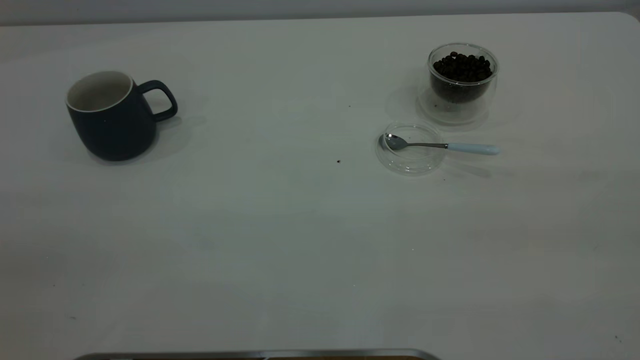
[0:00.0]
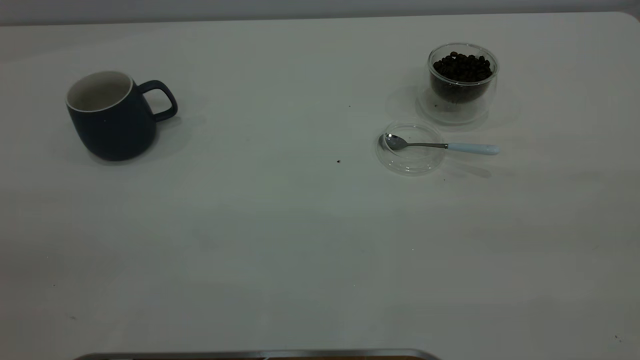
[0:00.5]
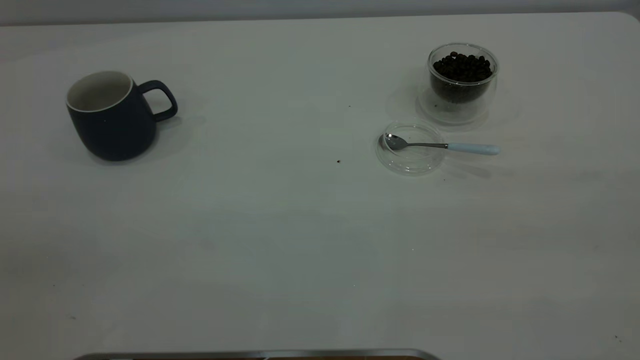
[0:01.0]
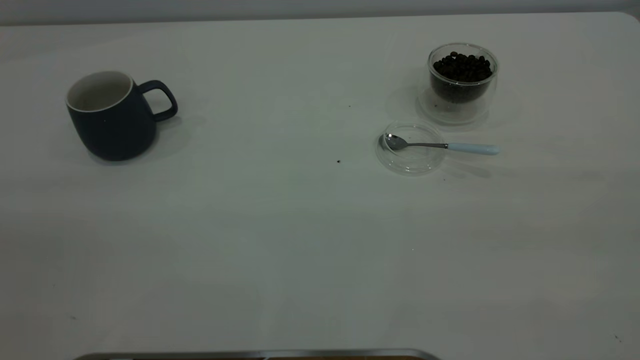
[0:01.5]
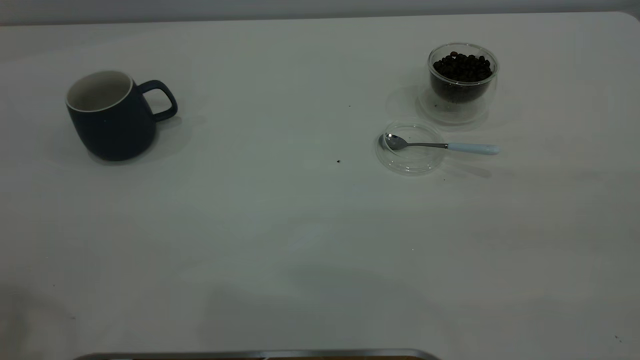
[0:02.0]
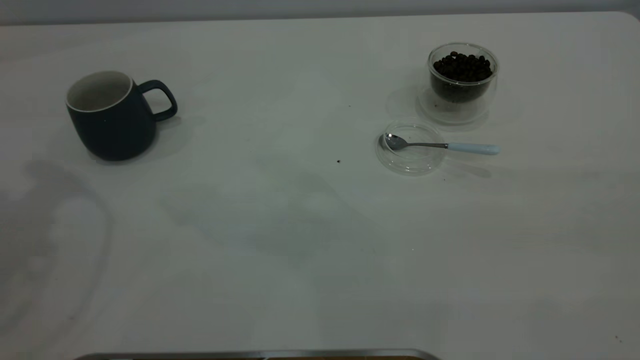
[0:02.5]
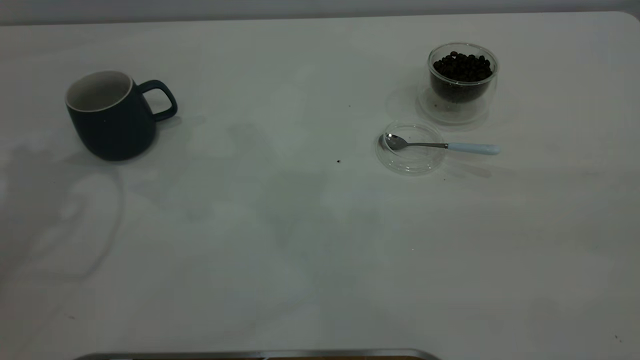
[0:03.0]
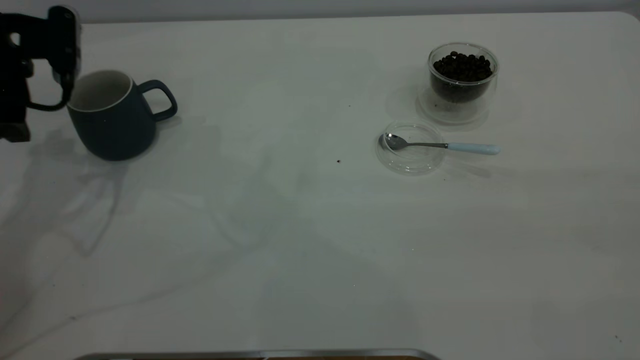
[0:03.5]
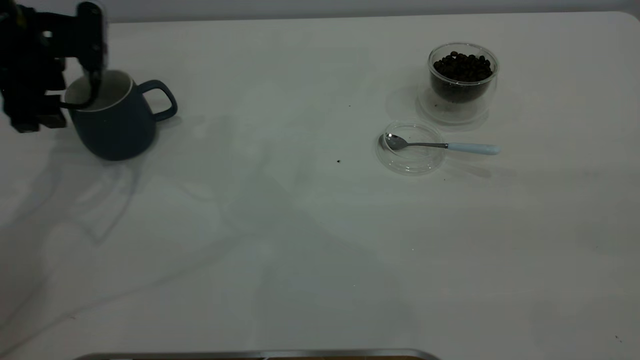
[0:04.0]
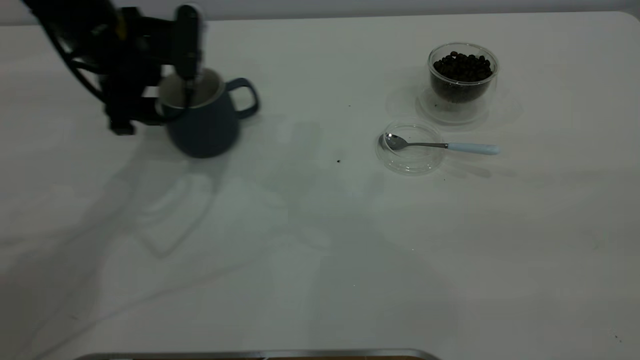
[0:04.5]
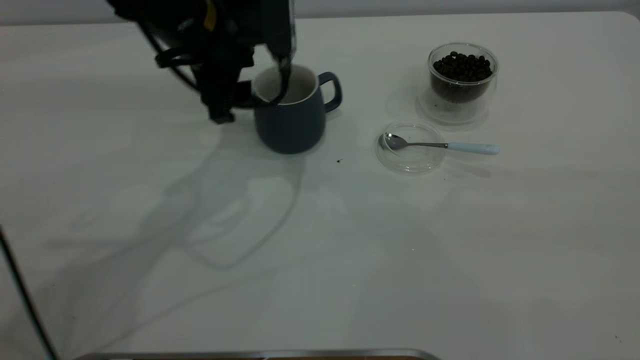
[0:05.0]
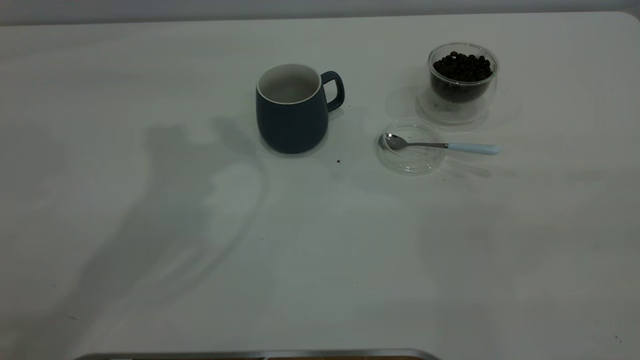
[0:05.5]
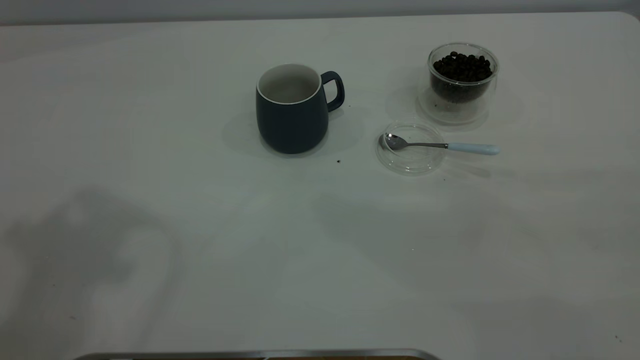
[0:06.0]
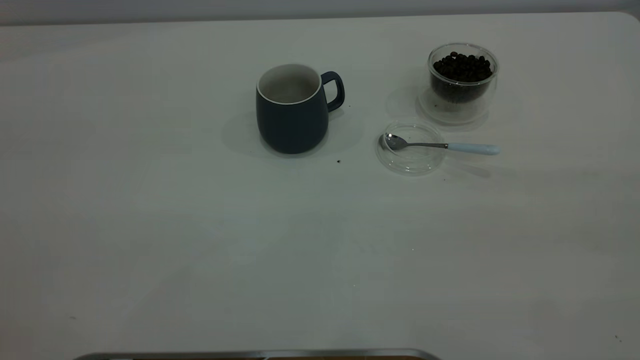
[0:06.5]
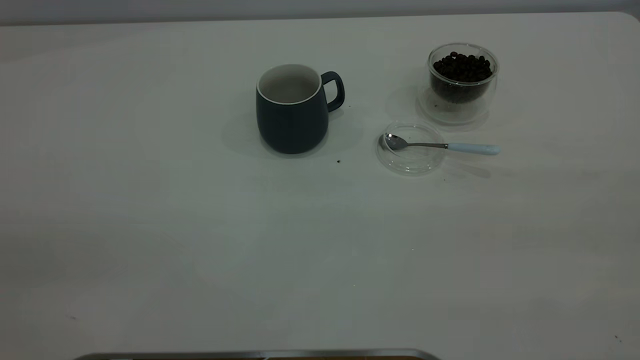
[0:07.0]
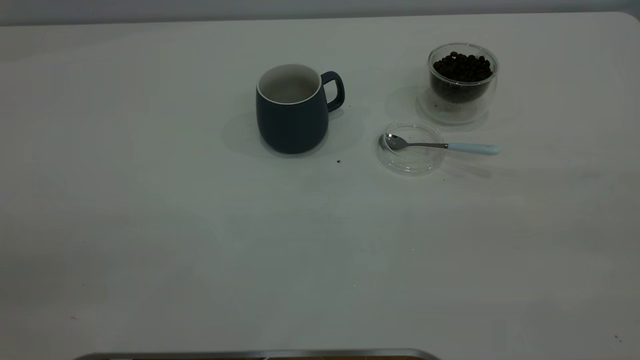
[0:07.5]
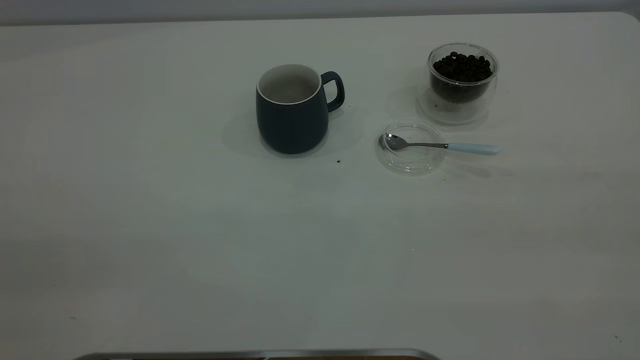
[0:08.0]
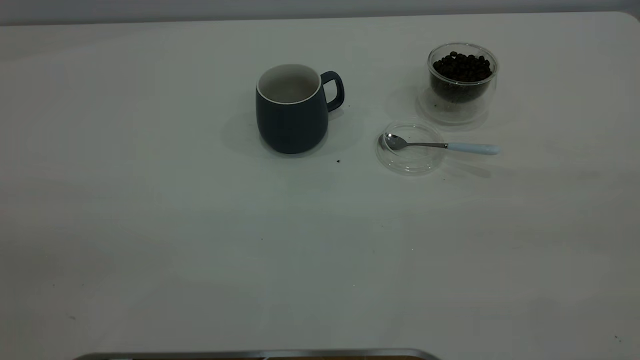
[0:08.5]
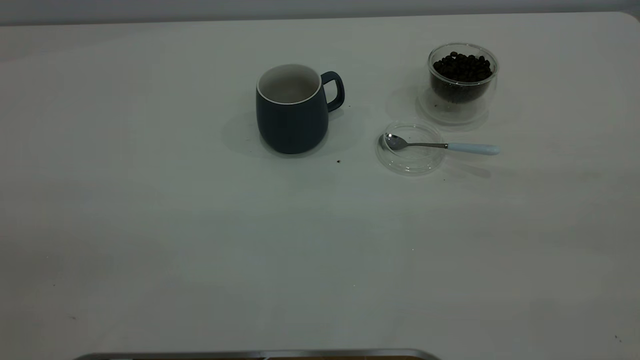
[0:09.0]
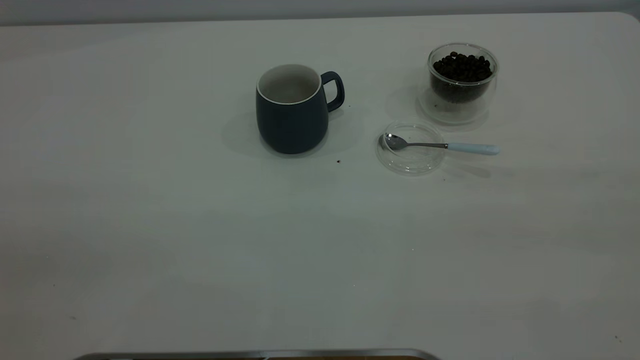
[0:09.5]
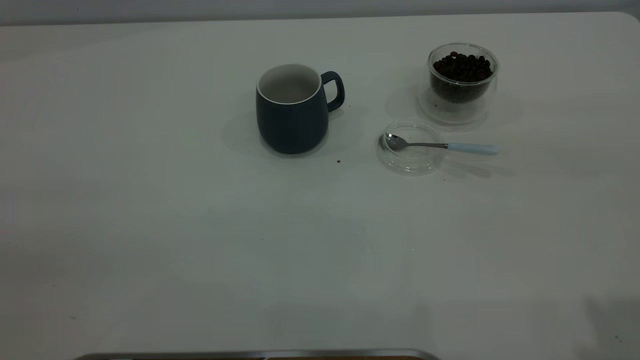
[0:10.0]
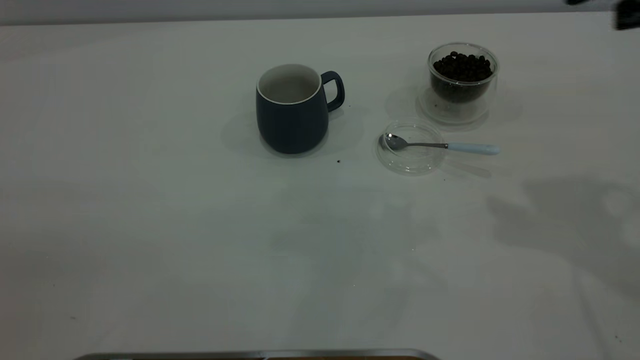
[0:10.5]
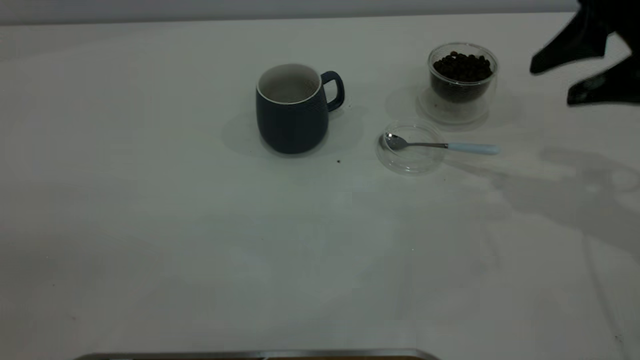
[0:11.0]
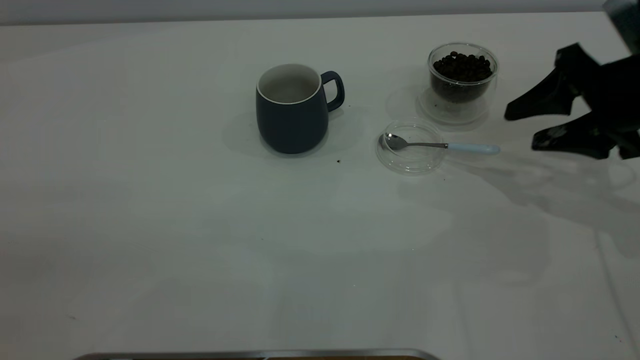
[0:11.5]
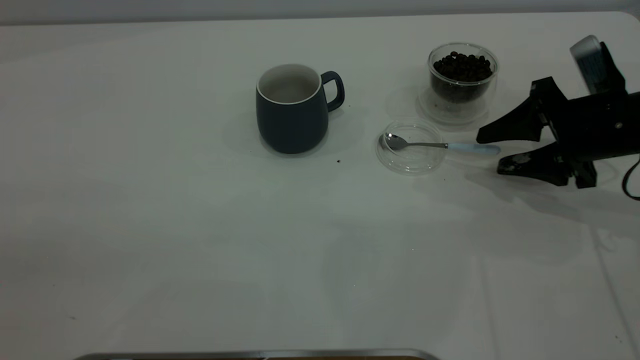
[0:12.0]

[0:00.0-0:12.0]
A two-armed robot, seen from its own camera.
Task of the whole recording: the left gripper place the grey cup in the center of the table, the right gripper take the blue spoon from the cup lid and scoop out the coffee beans from the coffee cup and put them into the grey cup, the right gripper put the spoon back into the cup lid.
Step, 0:00.0 to 0:05.0: Move the cup to the center of view.
0:02.0 to 0:04.0: The left gripper moves downward and forward, approximately 35 cm.
0:04.0 to 0:06.0: The left gripper goes roughly 40 cm upward and backward.
0:10.0 to 0:12.0: The right gripper heads downward and forward, covering some 35 cm.

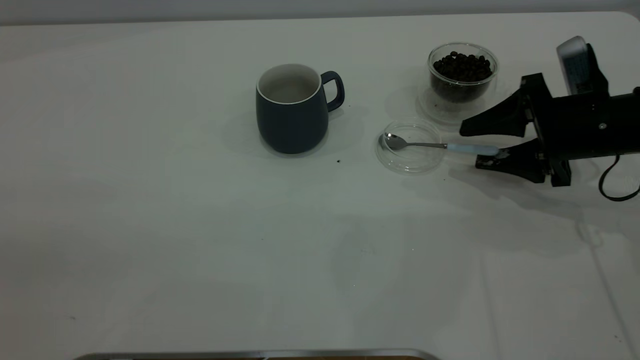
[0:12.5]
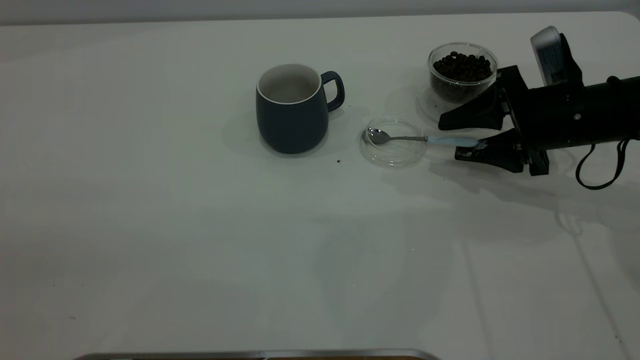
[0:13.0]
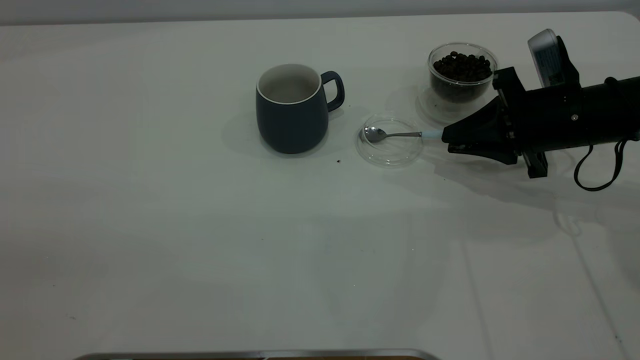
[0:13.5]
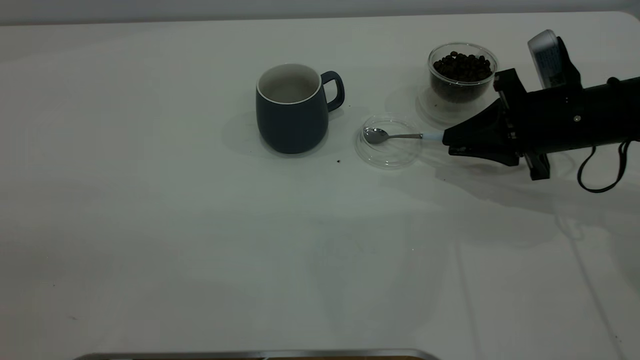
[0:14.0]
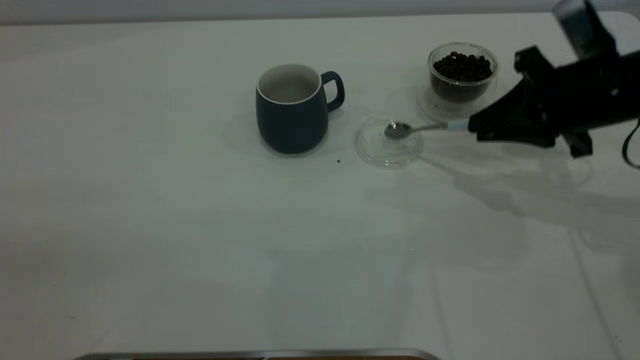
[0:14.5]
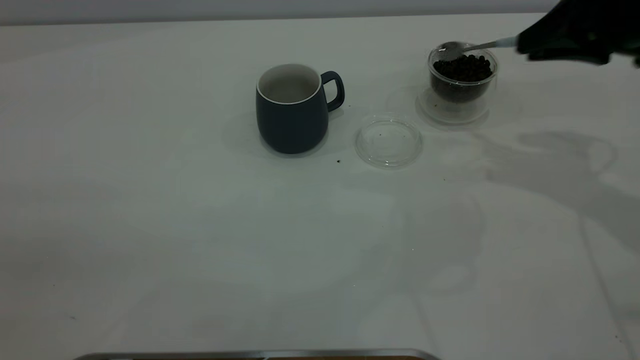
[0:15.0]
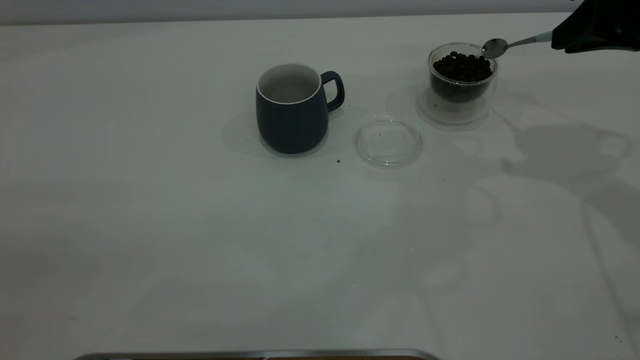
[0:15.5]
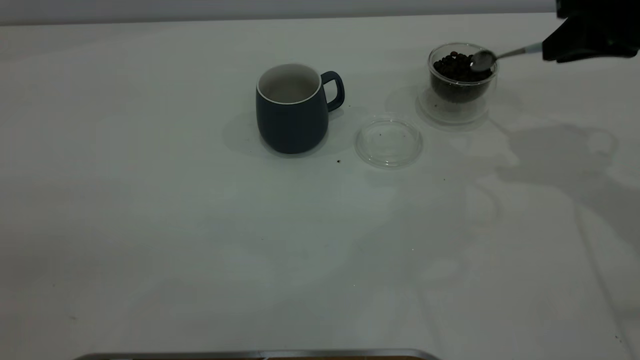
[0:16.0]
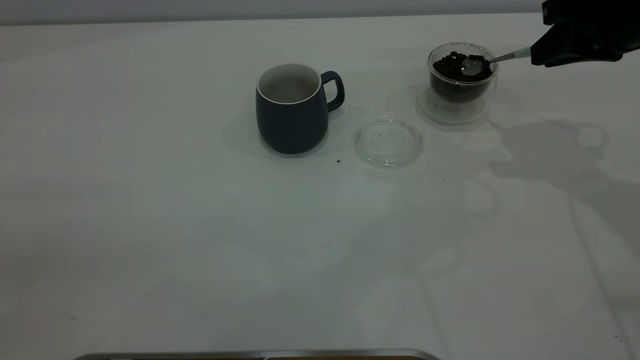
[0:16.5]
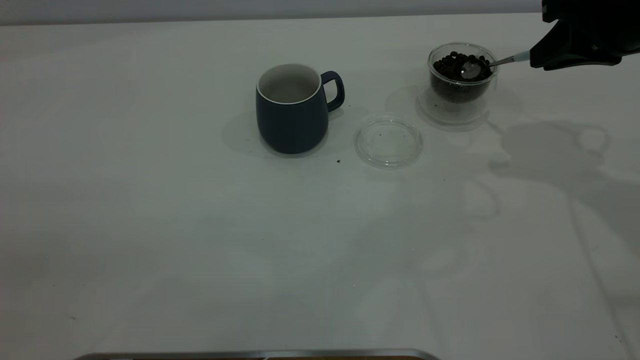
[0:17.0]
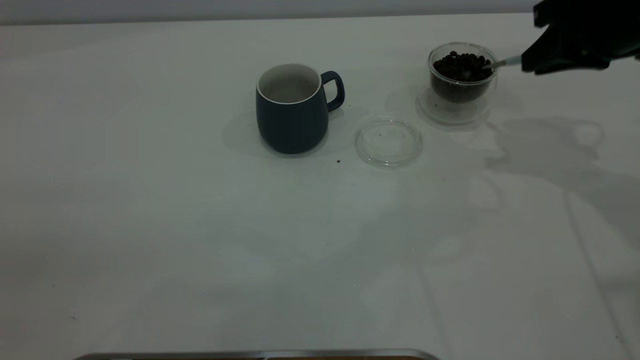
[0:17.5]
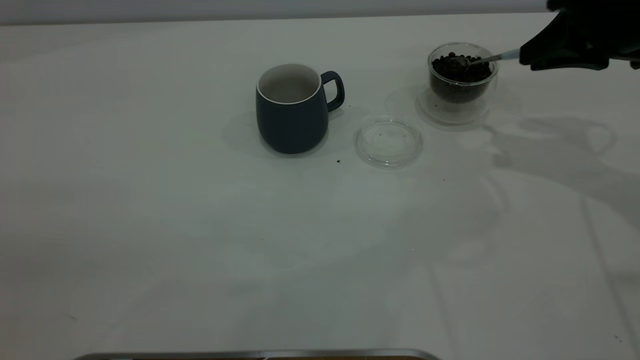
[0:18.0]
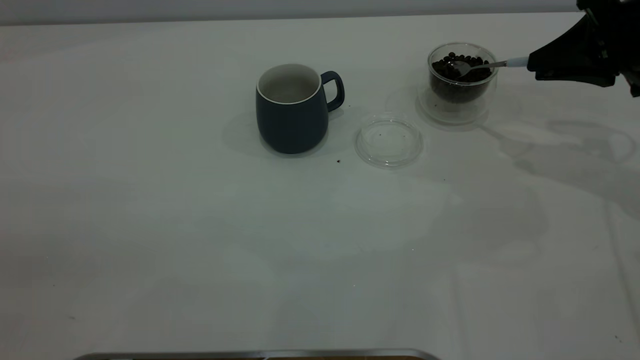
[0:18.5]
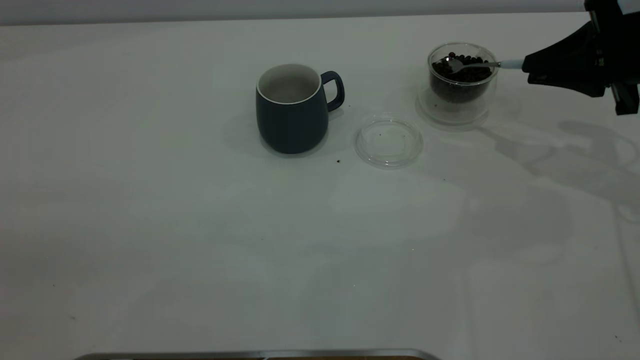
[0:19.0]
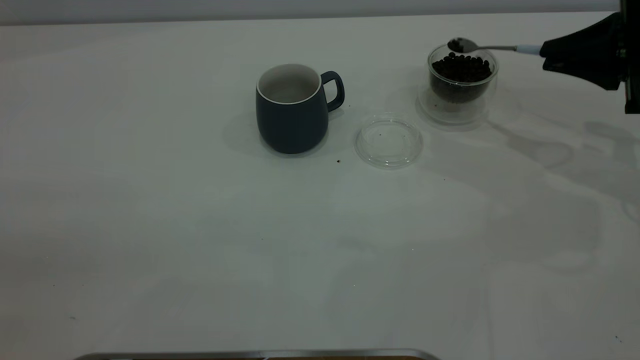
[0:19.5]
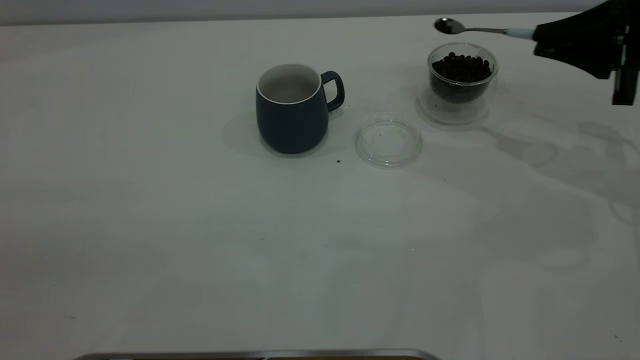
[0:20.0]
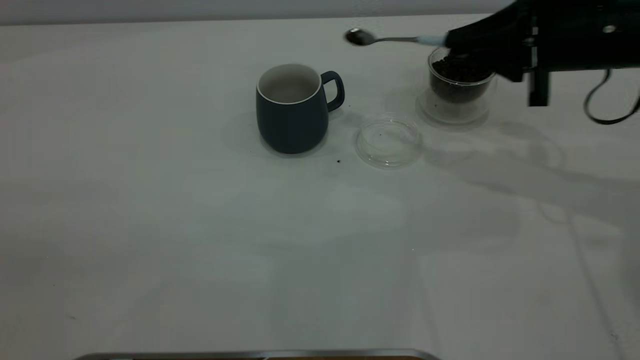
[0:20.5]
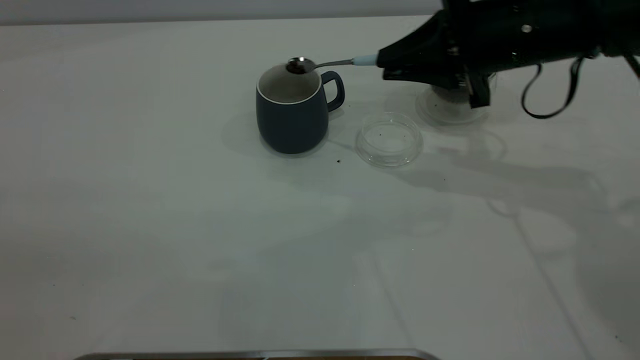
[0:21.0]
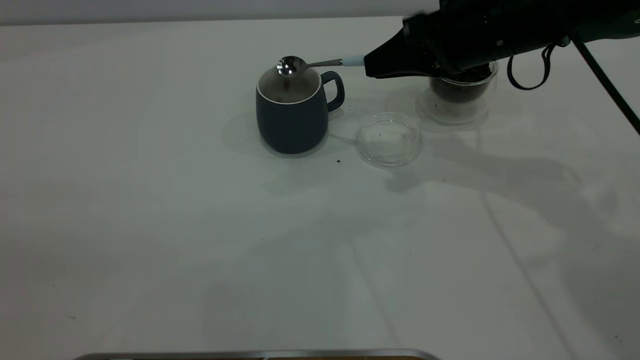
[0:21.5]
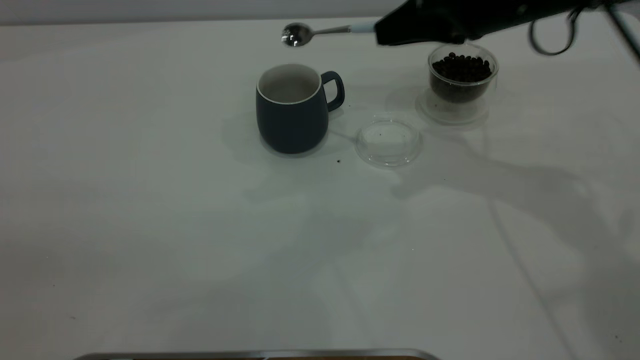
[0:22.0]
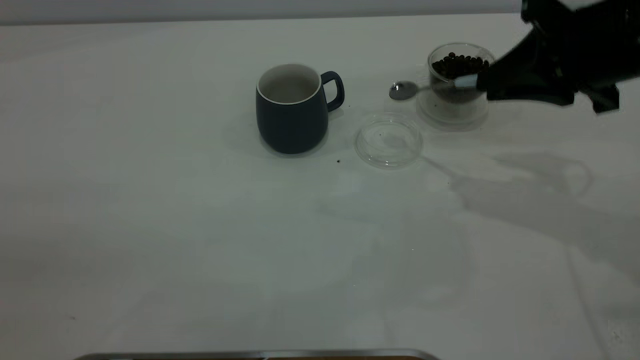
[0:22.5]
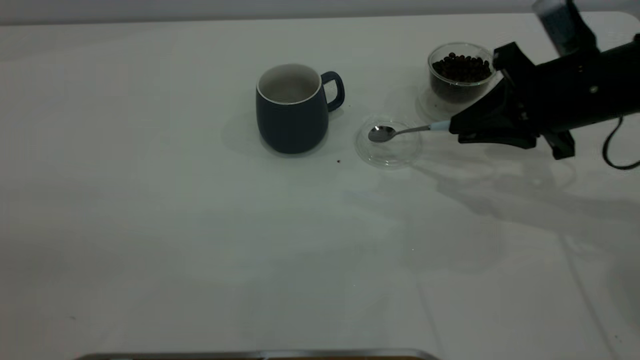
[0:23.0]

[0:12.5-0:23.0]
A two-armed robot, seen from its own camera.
Task of the whole recording: the left gripper place the grey cup in the center of the table, the right gripper take the blue spoon from the cup lid and scoop out the coffee beans from the coffee cup and put them into the grey cup, the right gripper put the spoon back into the cup lid.
Step, 0:12.5 to 0:14.5: Pick up the spoon.
Step, 0:15.0 to 0:21.5: Scoop a spoonful of beans into the cup.
0:12.5 to 0:14.5: The right gripper travels upward by roughly 5 cm, and closes up.
0:14.5 to 0:16.5: The right gripper is displaced upward by approximately 5 cm.
0:16.5 to 0:19.0: The right gripper shifts approximately 5 cm downward.
0:19.0 to 0:21.0: The right gripper shifts approximately 15 cm to the left.
0:21.0 to 0:23.0: The right gripper moves to the right, about 5 cm.
